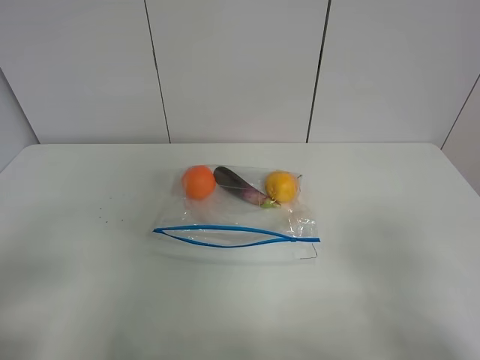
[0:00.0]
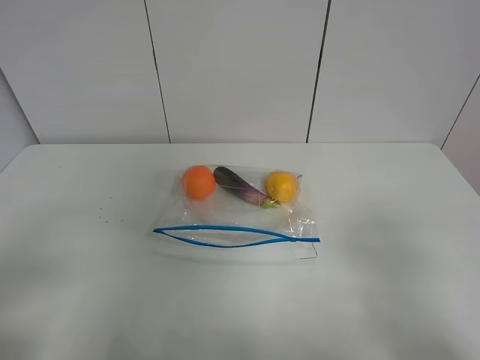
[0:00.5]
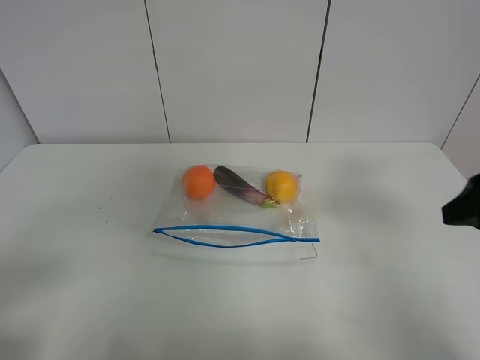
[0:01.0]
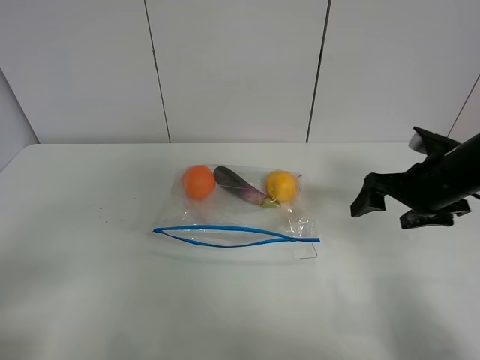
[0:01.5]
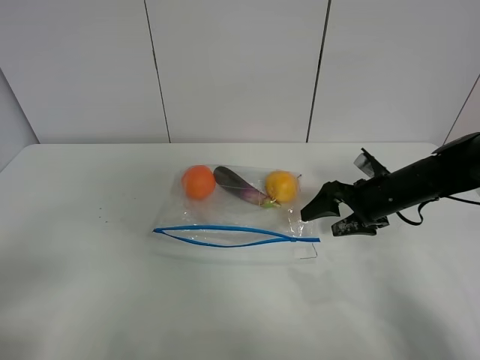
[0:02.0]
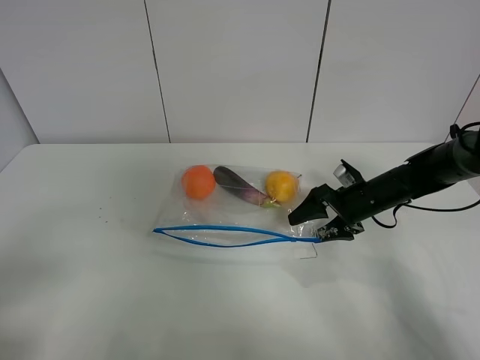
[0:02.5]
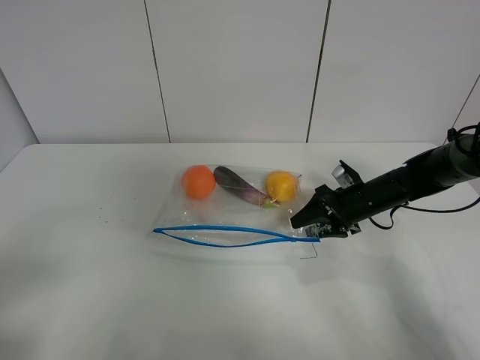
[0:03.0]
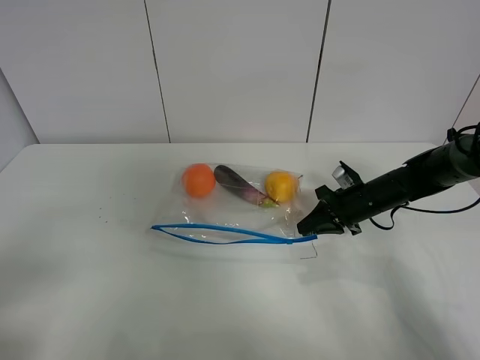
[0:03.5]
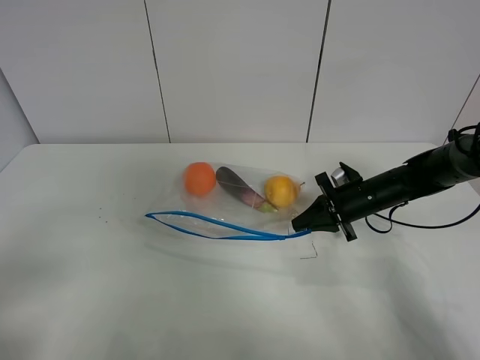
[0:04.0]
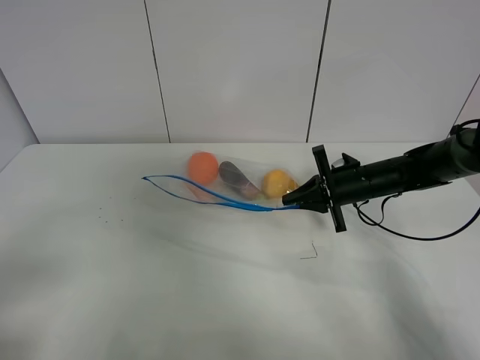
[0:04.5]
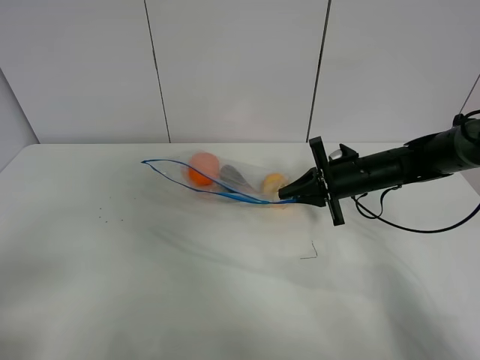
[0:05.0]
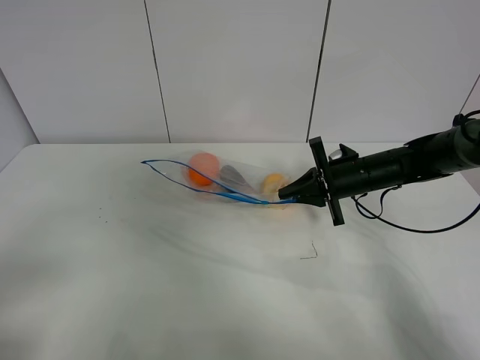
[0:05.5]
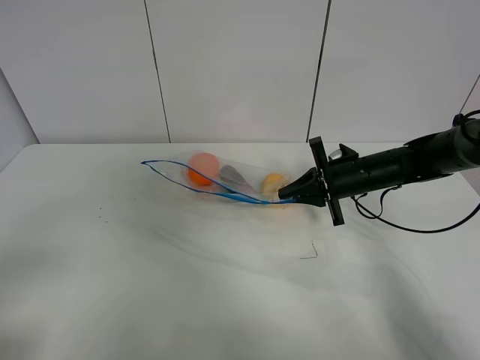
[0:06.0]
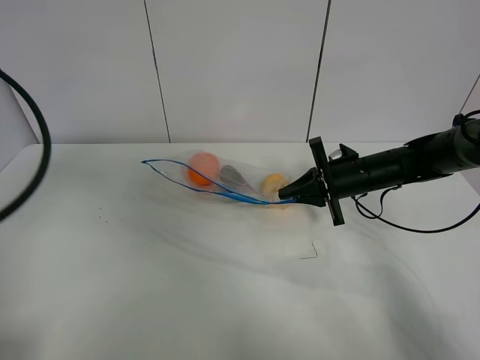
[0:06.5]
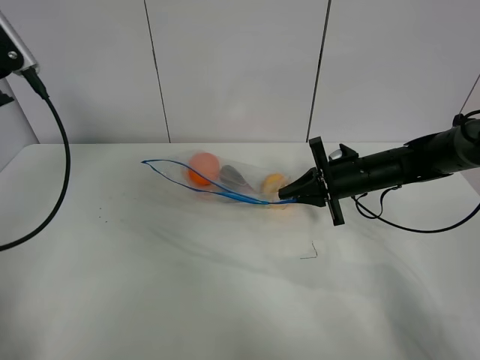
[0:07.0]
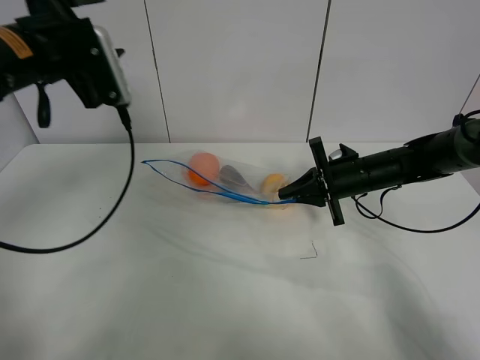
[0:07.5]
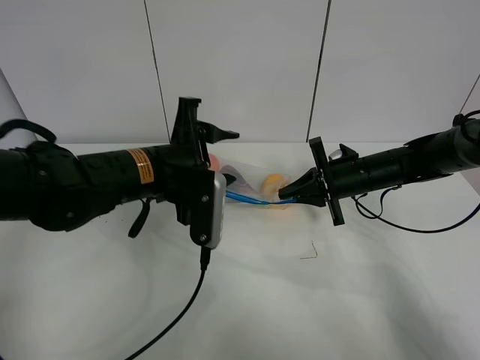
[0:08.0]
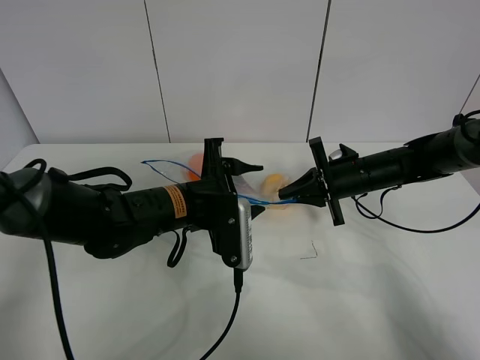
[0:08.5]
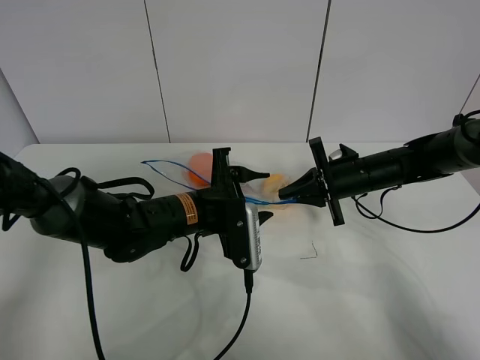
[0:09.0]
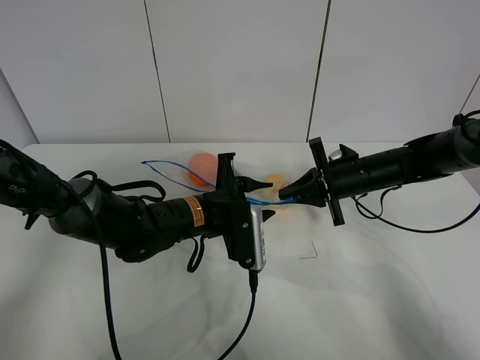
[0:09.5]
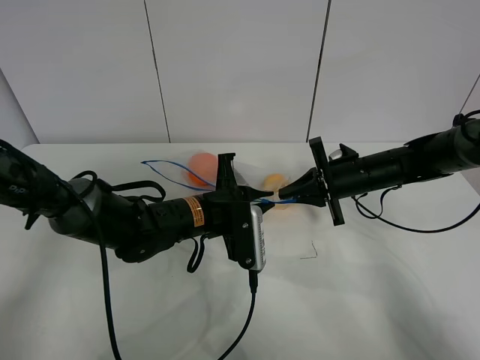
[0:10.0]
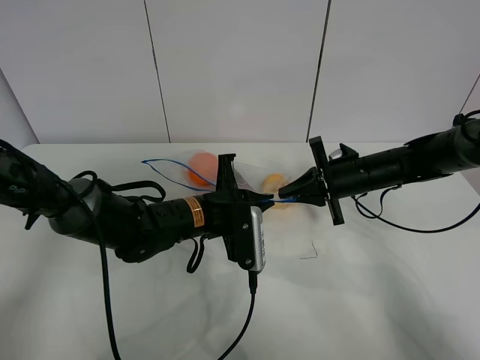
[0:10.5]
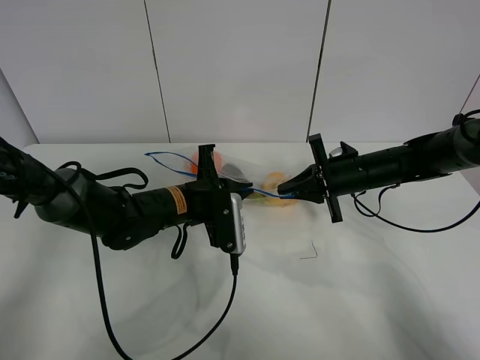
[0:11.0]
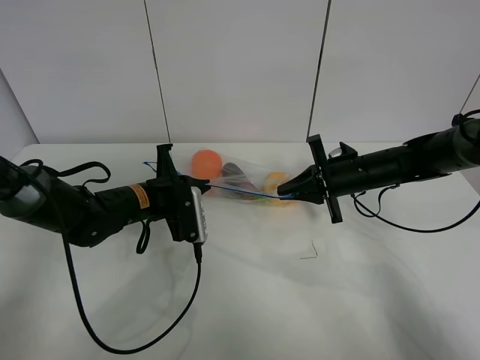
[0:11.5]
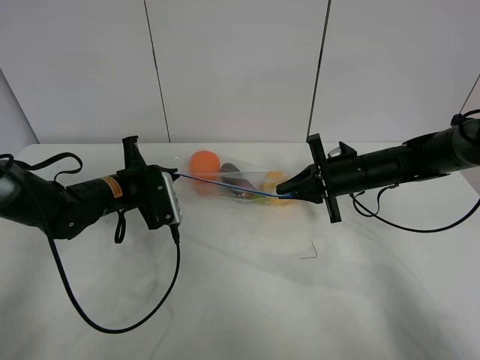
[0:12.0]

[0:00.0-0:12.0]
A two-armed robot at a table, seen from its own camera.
Step, 0.0 to 3.5 s: Grasp the fruit bag with right gripper.
Step, 4.0 to 5.0 s: Lift the fruit bag with your right gripper.
0.0 to 2.0 s: The right gripper travels forward and downward by some 35 cm.
2.0 to 4.0 s: The right gripper closes.
4.0 to 6.0 s: The grippers make only small movements.
6.0 to 8.0 s: The left gripper goes some 35 cm forward and to the right.
8.0 to 10.0 s: The left gripper moves downward, some 10 cm, and closes its fingers.
10.0 to 12.0 s: The left gripper moves to the left, some 15 cm.

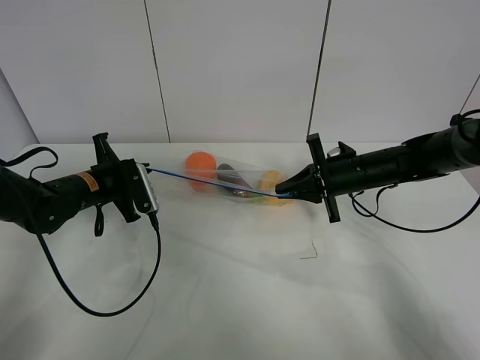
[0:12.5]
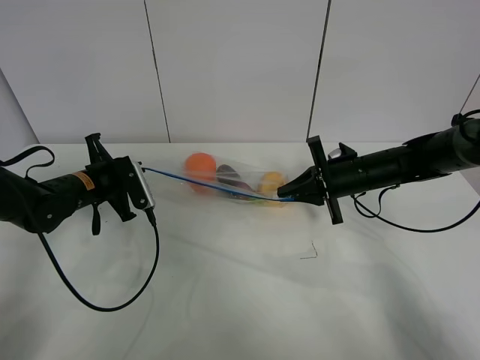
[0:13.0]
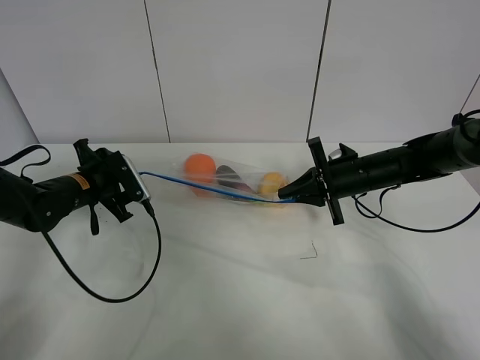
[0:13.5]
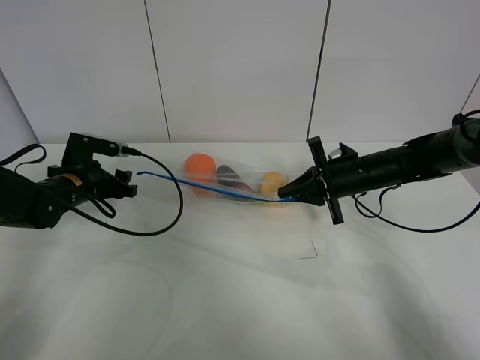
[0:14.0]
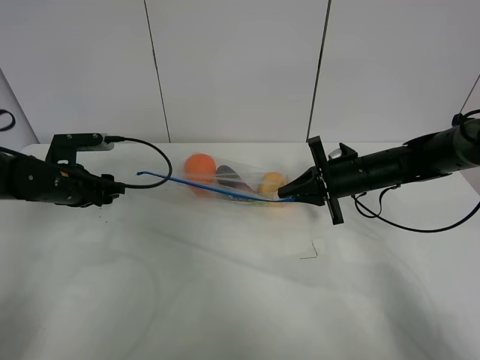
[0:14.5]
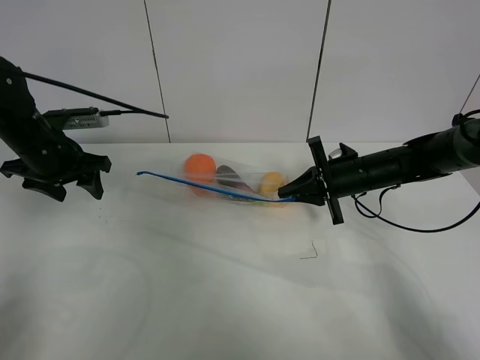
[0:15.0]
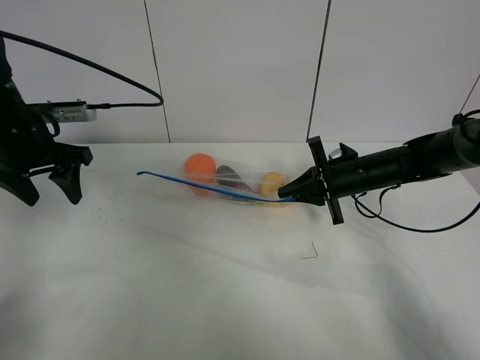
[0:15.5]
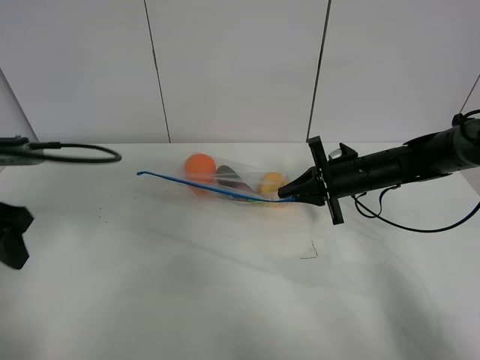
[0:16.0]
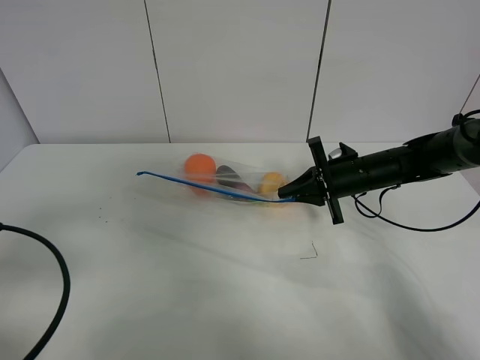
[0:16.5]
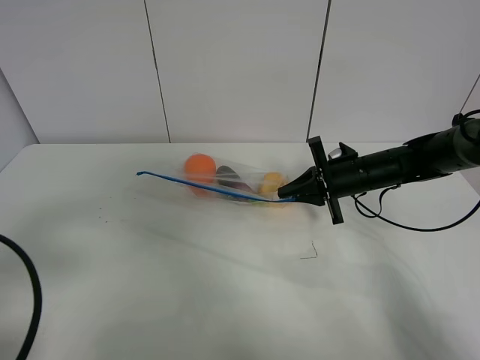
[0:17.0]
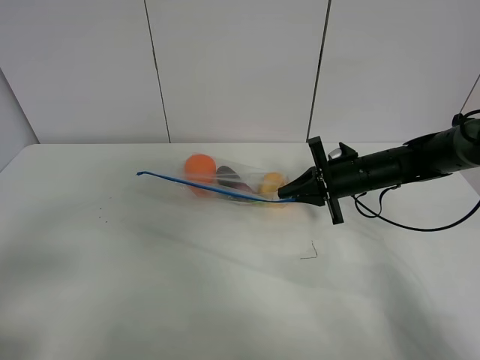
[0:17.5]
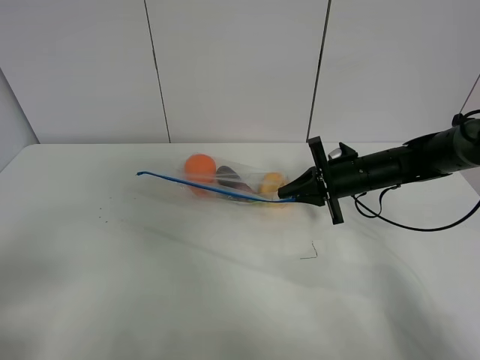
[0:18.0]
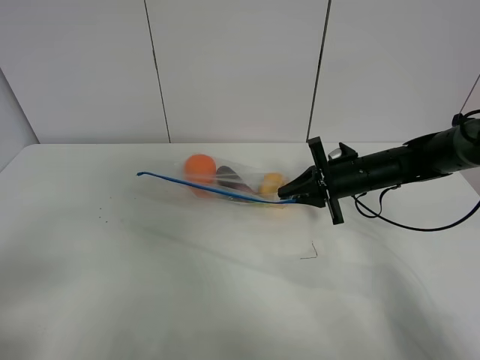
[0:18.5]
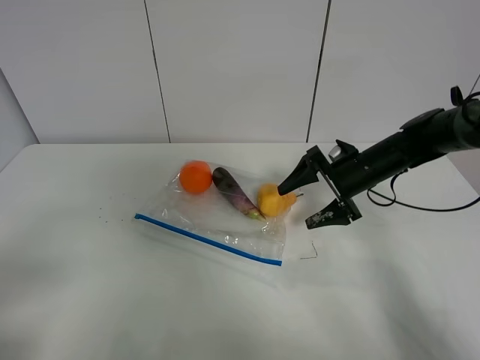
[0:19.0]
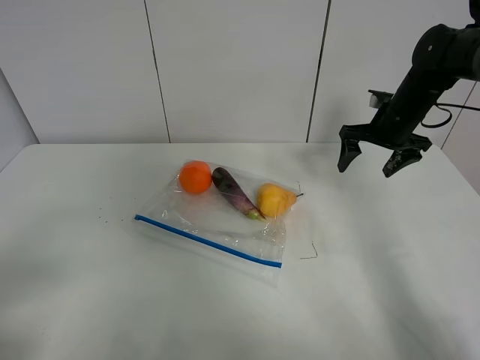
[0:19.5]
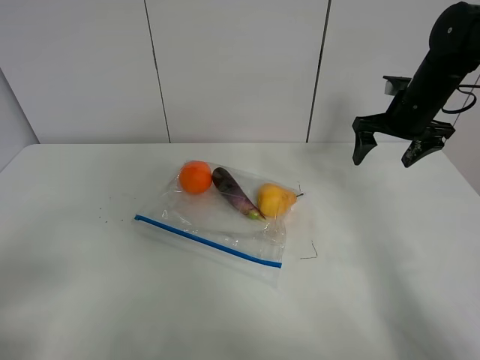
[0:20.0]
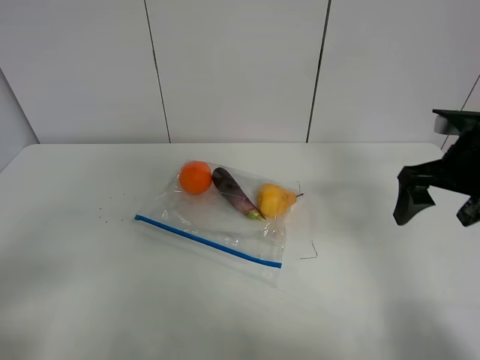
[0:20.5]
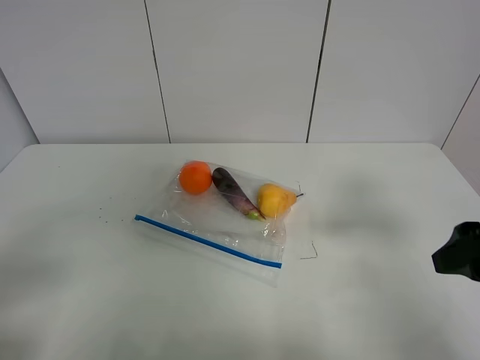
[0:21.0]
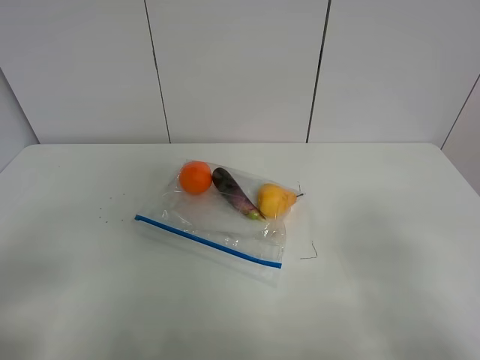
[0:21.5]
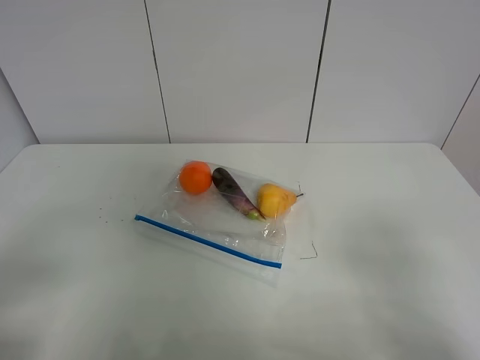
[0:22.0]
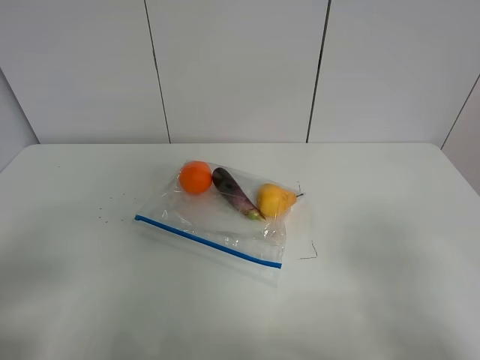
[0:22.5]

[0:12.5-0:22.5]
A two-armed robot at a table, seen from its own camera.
12.5 to 14.5 s: The left gripper opens.
14.5 to 16.5 s: The left gripper heads backward and upward, covering some 25 cm.
16.5 to 18.5 s: The left gripper heads backward, covering approximately 10 cm.
18.5 to 20.5 s: The right gripper is displaced upward, backward and to the right by roughly 20 cm, and opens up.
20.5 to 22.5 s: The right gripper moves backward, some 25 cm.

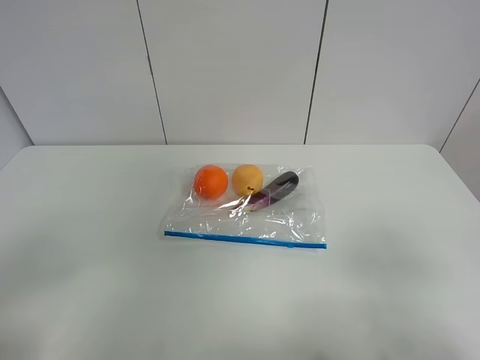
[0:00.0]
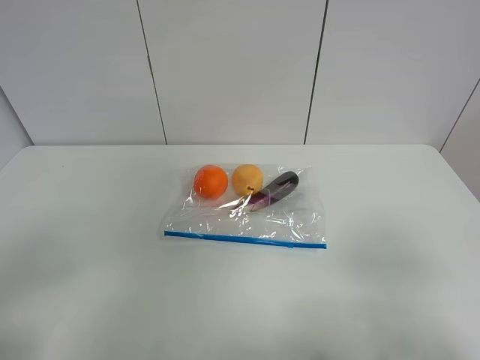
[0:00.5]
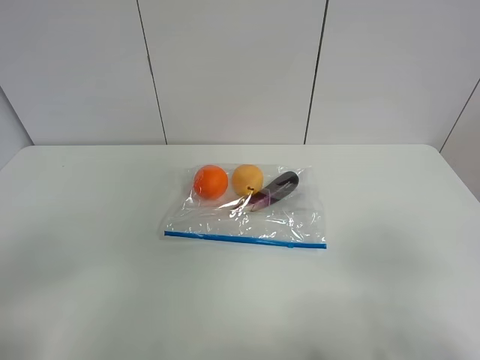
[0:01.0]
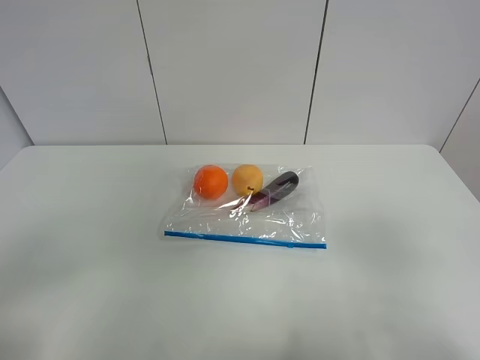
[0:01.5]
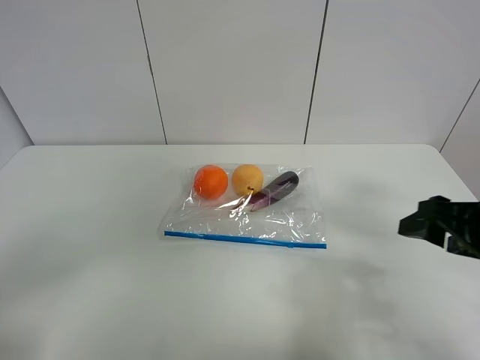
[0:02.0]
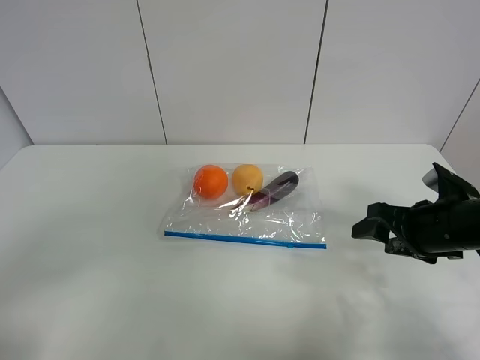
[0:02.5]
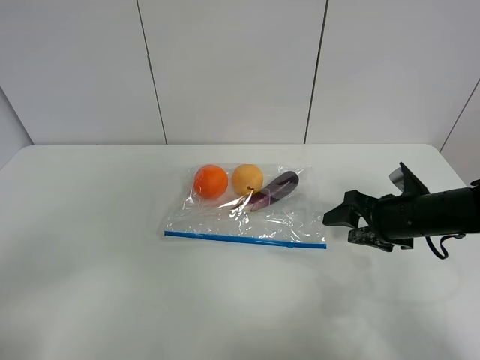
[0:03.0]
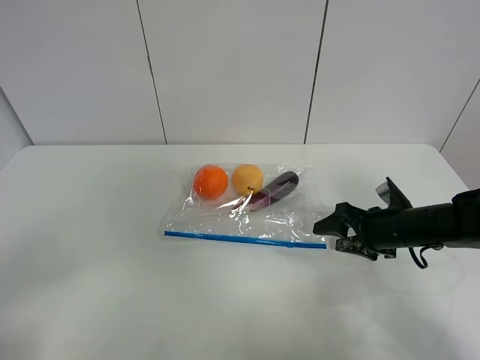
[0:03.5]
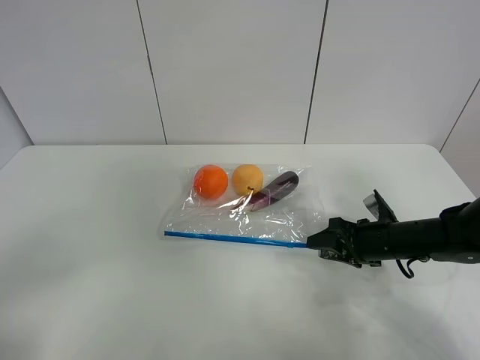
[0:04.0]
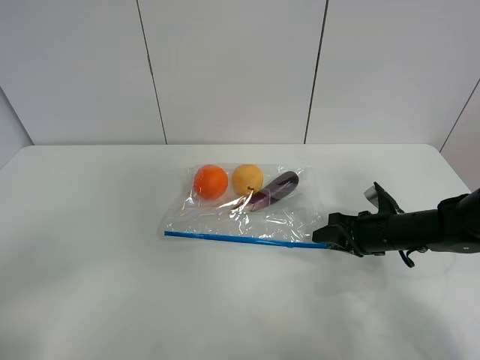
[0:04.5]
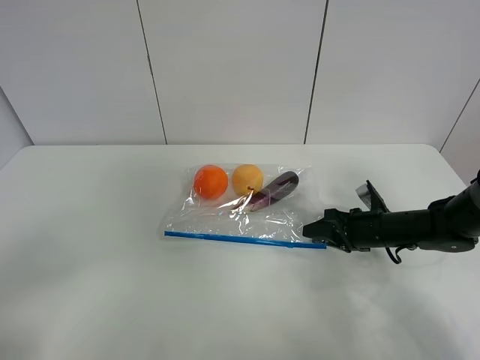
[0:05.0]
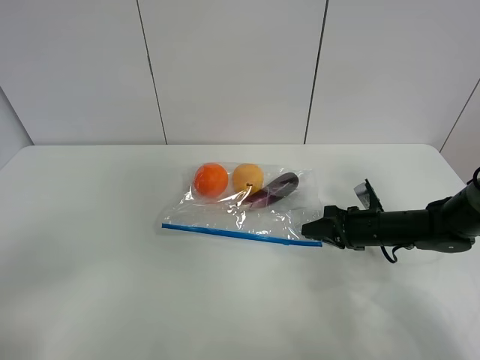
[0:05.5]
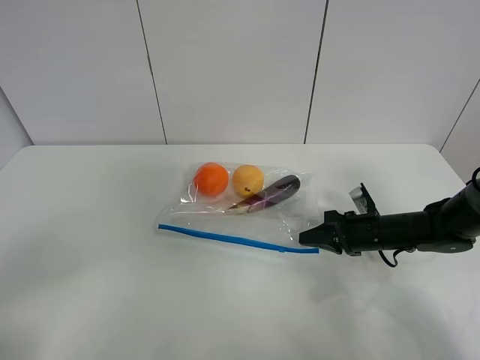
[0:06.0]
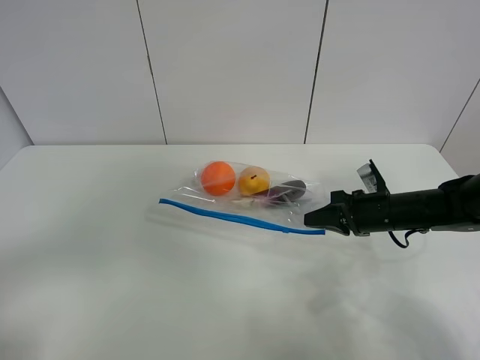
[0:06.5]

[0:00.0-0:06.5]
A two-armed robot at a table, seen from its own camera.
Step, 0.0 to 5.5 s: Grasp the fruit bag with right gripper.
0.0 to 2.0 s: The right gripper goes approximately 20 cm forward.
2.0 to 4.5 s: The right gripper travels downward and forward by roughly 20 cm, and closes up.
4.5 to 6.5 s: The right gripper closes up; the left gripper changes place by roughly 5 cm.
